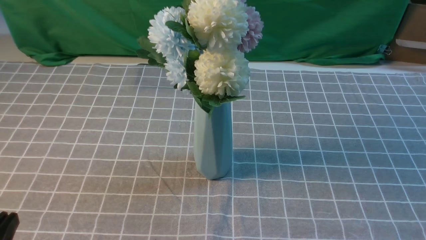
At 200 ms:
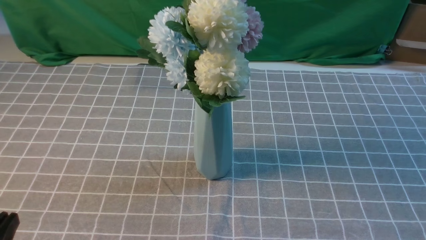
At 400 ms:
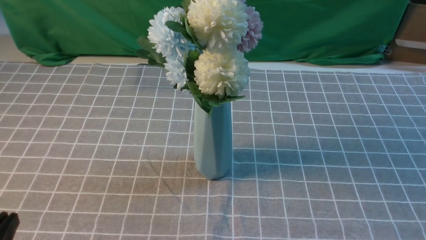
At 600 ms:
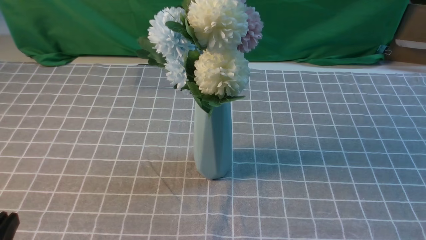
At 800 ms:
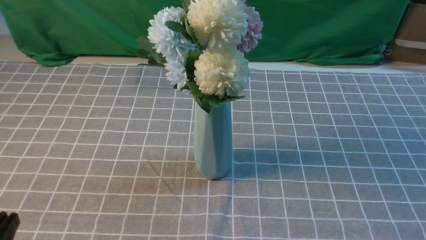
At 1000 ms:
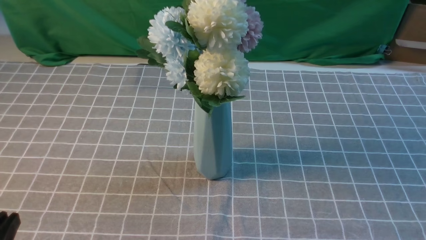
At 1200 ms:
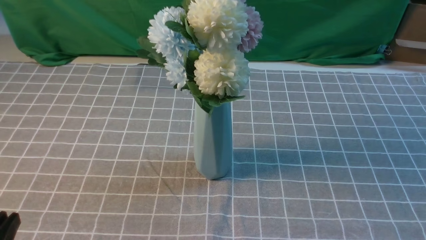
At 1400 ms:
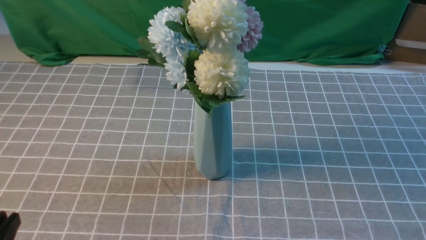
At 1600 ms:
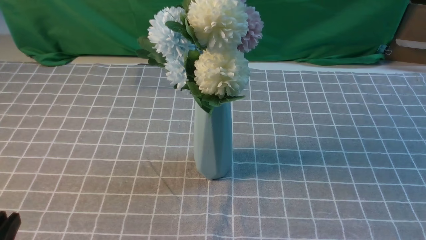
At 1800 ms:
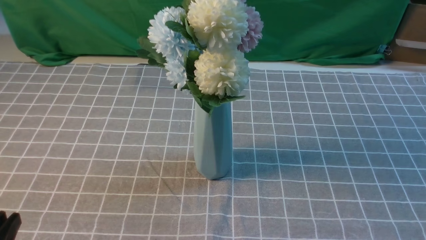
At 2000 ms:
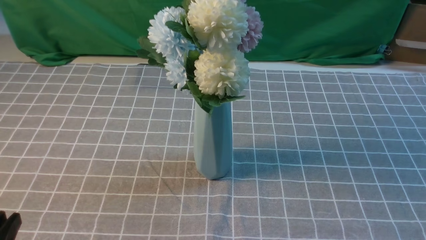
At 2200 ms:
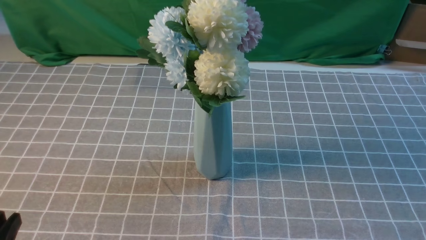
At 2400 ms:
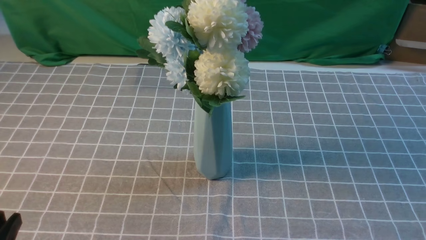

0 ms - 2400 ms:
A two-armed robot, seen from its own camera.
Task of the whole recording: insert the flowers into the vase on the table with the grey tablecloth.
1200 ms - 2400 ms: Neither gripper changes place.

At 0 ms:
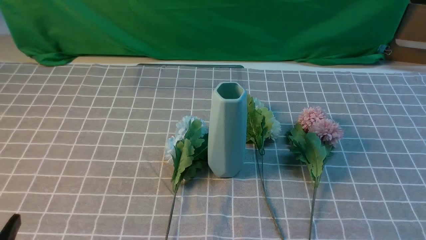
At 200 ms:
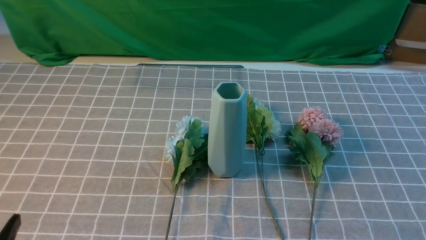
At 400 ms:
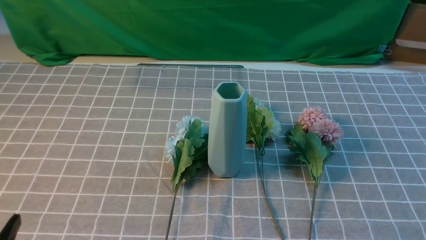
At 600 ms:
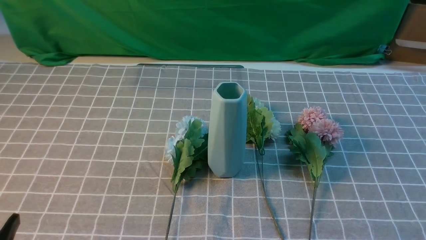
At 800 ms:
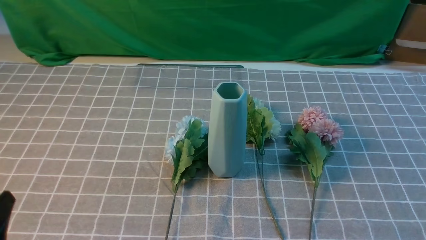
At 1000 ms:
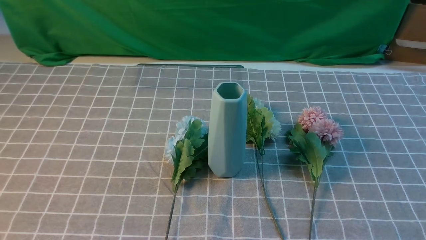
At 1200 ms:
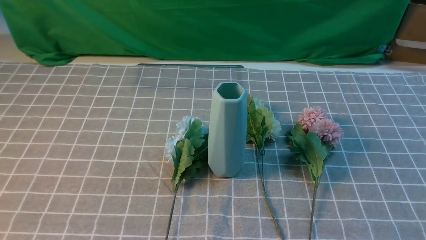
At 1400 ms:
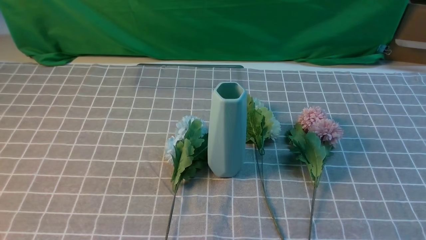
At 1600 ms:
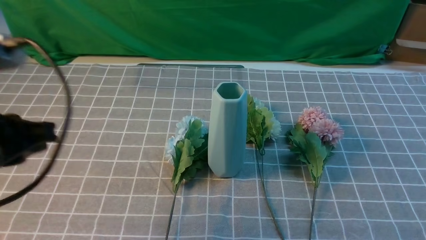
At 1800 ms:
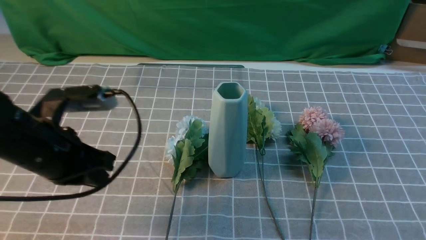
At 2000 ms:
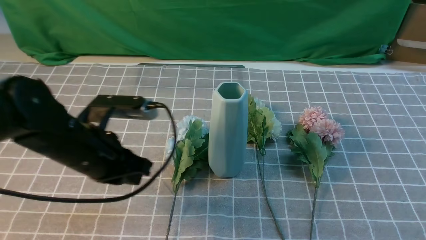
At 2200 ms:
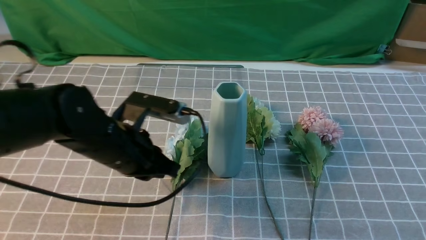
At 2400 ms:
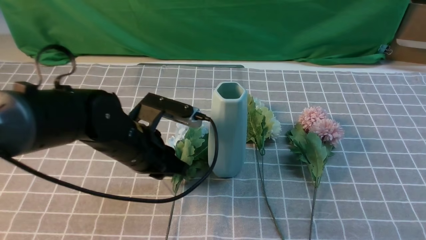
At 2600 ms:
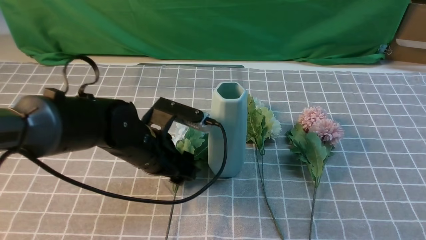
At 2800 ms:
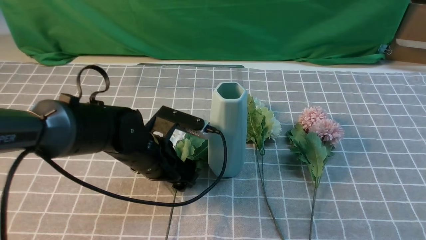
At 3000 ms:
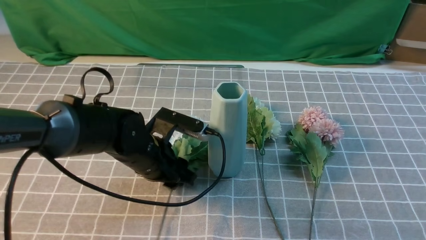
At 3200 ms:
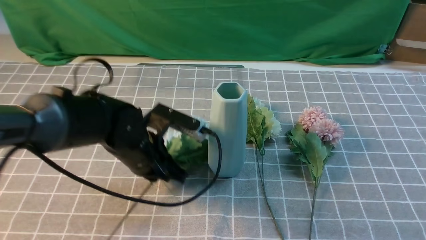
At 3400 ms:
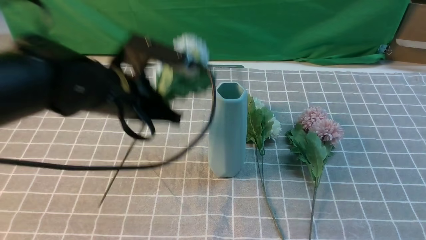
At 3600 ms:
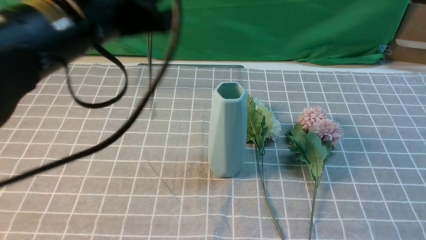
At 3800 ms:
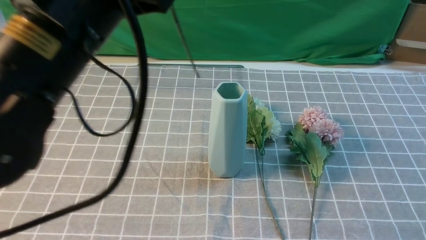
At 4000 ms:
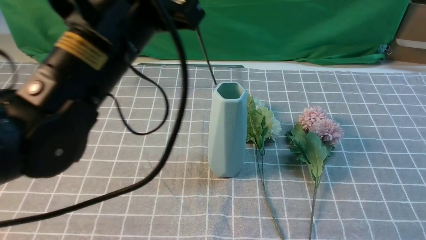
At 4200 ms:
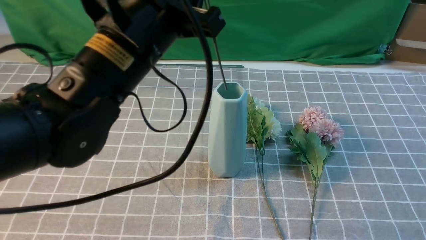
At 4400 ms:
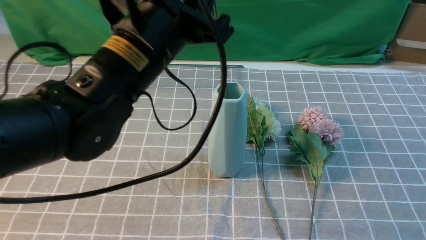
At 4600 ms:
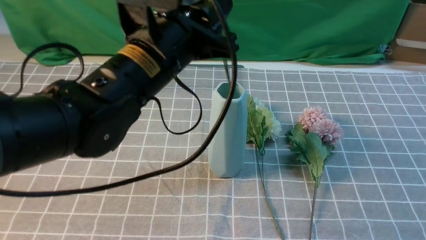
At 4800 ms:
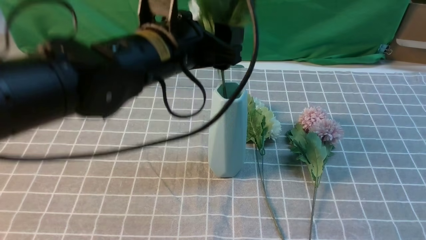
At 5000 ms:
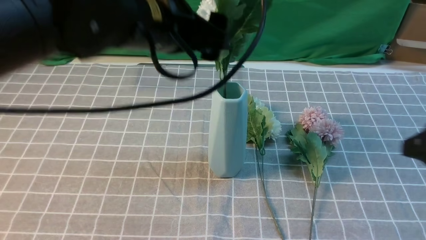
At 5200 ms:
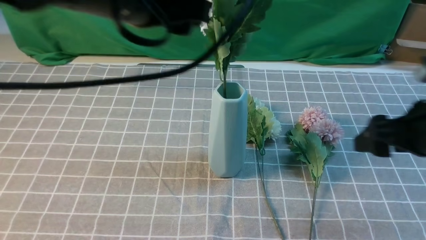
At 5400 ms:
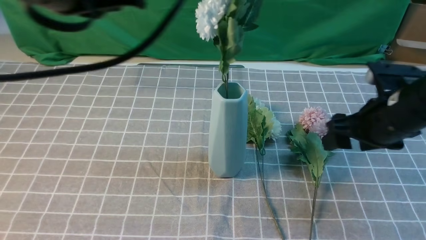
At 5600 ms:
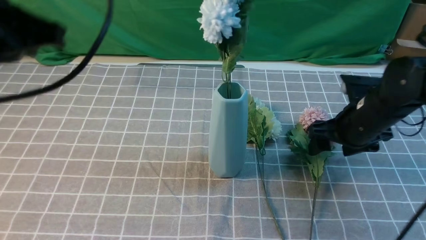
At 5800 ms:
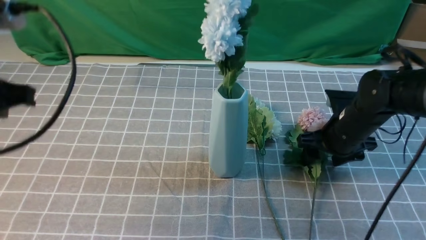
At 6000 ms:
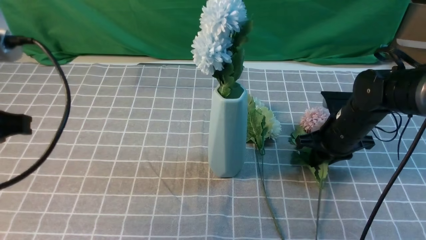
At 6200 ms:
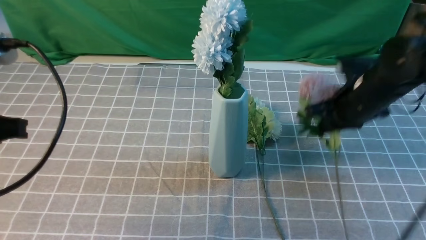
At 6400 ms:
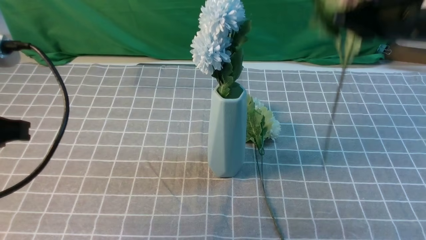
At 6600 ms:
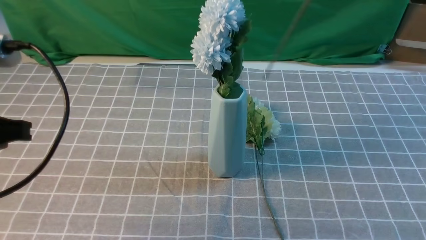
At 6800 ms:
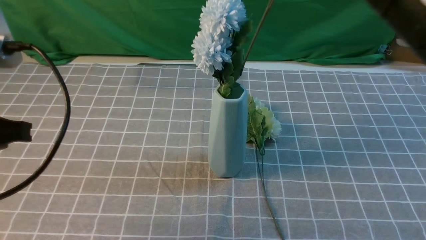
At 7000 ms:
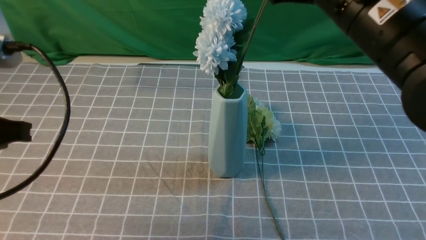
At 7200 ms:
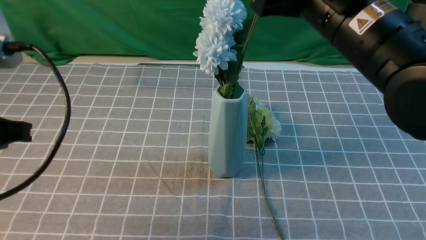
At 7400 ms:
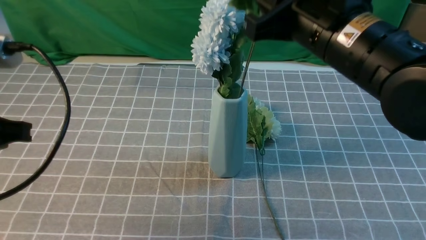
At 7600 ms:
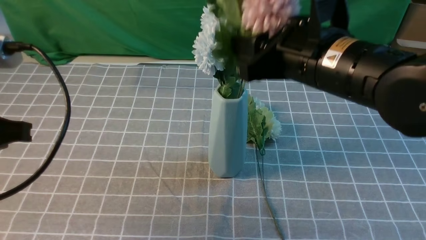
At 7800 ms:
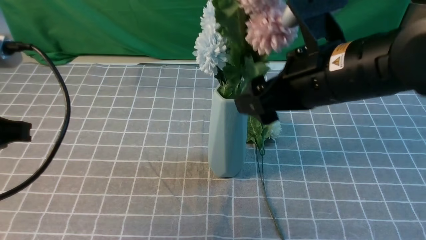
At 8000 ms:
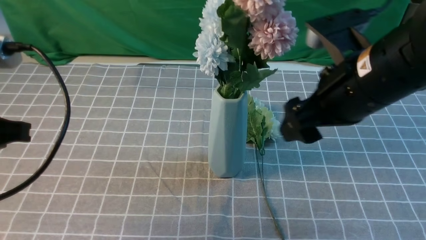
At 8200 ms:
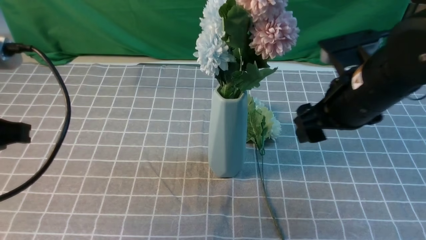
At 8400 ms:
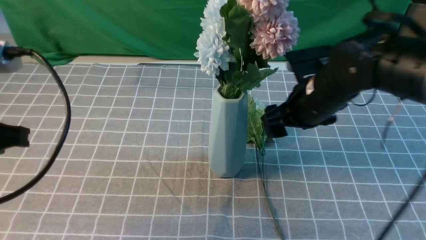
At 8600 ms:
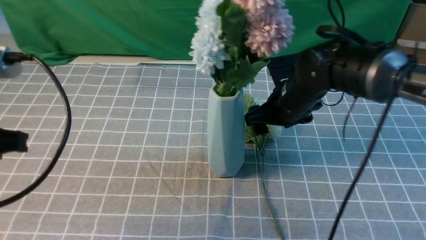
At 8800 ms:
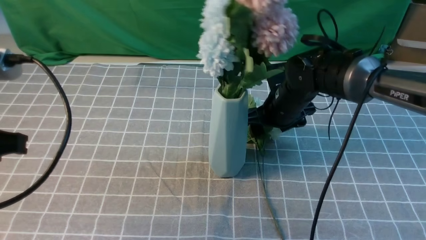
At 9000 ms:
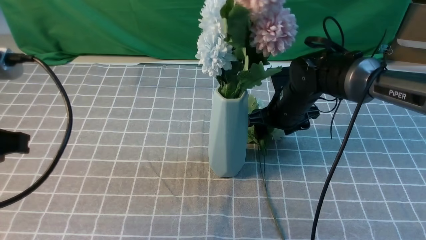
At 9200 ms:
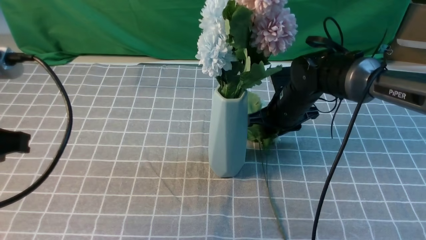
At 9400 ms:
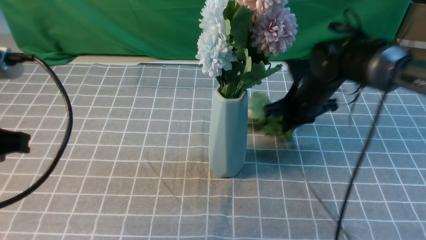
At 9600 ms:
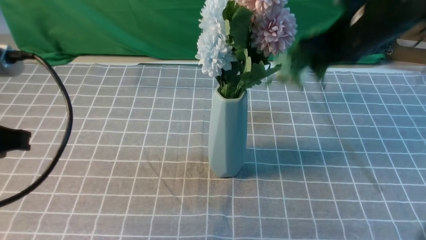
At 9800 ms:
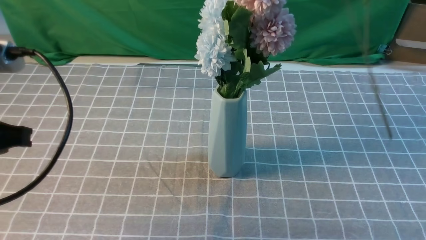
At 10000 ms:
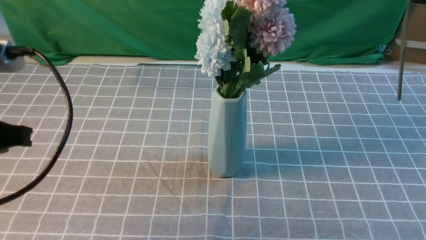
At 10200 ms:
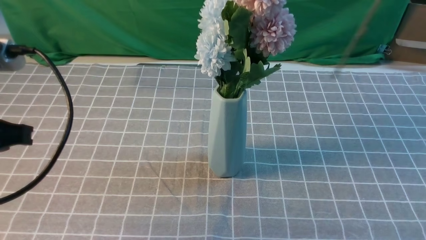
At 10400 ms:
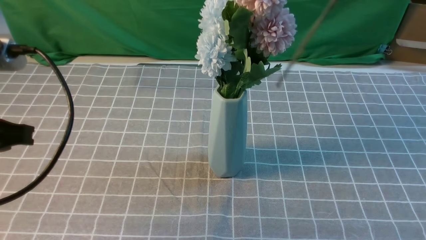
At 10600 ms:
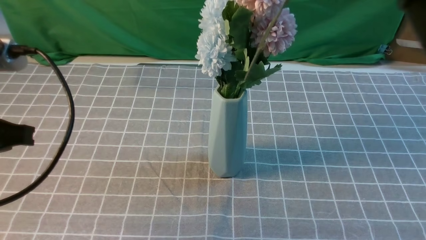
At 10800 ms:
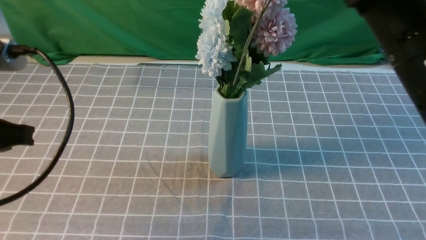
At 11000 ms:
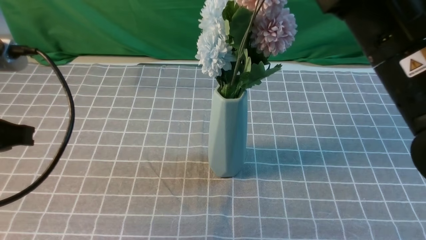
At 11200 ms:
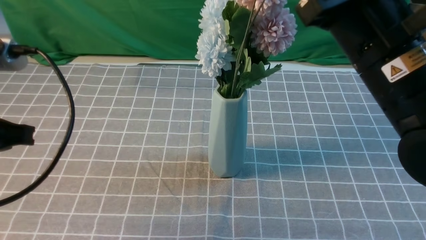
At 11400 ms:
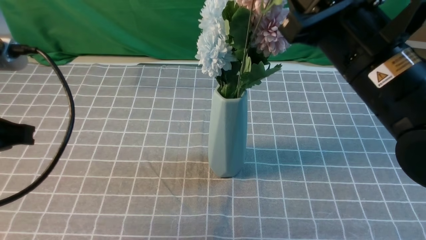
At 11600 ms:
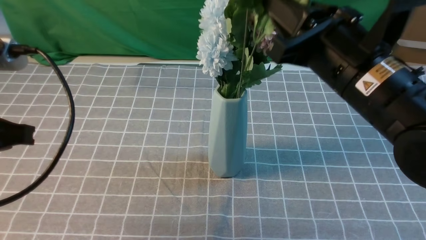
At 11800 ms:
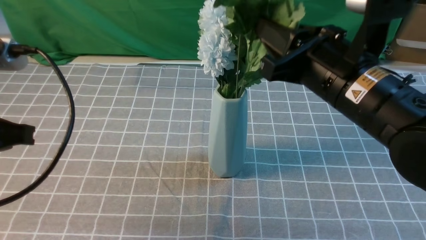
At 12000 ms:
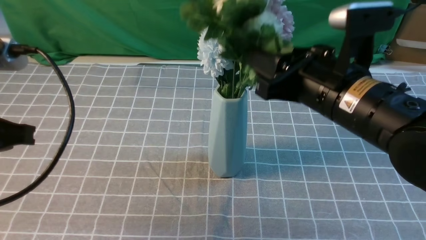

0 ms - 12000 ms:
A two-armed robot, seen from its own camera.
Task of the whole recording: insert the flowers into the vase on the table with the grey tablecloth.
Step, 0 ms - 3000 ms: use the left arm to grab a bunch of fresh flowers.
Step, 3200 ms - 5000 ms: use the left arm to insert the flowers into the vase.
Step, 5200 ms - 6000 ms: use the right arm to grab a bunch of fresh flowers.
Step, 6200 ms - 7800 ms: use the right arm to insert the flowers into the vase.
Step, 8000 ms - 9200 ms: use the right arm to grab a bunch of fresh flowers.
0 ms - 1600 ms: The left gripper goes approximately 20 cm forward and upward, and closes its fingers.
1600 ms - 3000 ms: The left gripper travels downward, to the right and forward by some 20 cm, and opens up. The right gripper heads upward and forward, covering some 10 cm, and closes up.
3000 ms - 4400 ms: The left gripper heads upward, covering about 20 cm, and closes its fingers.
4400 ms - 6000 ms: The right gripper moves forward and downward, about 30 cm, and opens and closes again. Meanwhile the left gripper shifts some 20 cm to the left and backward, and opens, then closes once more.
6000 ms - 7600 ms: The right gripper goes approximately 20 cm upward, to the left and backward.
7600 ms - 9000 ms: The right gripper goes approximately 25 cm downward and forward.
9000 ms - 10400 ms: The right gripper shifts approximately 35 cm upward and backward, and closes.
10400 ms - 12000 ms: The right gripper goes some 15 cm downward, to the left and forward, and opens up.

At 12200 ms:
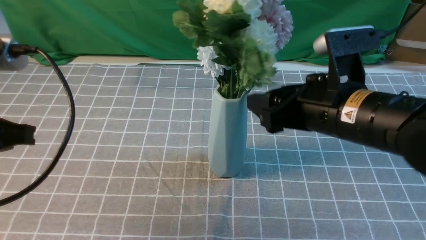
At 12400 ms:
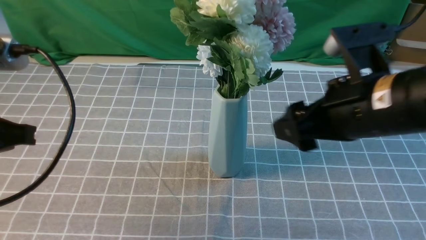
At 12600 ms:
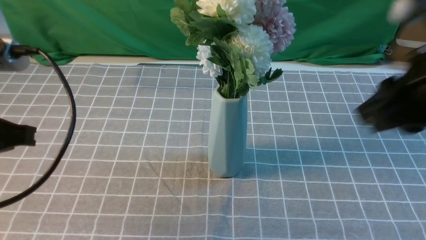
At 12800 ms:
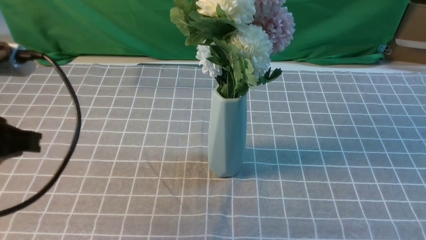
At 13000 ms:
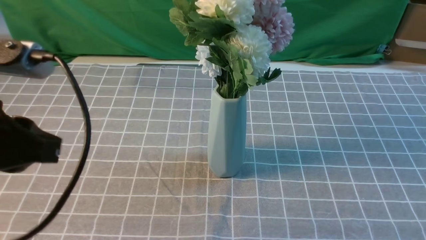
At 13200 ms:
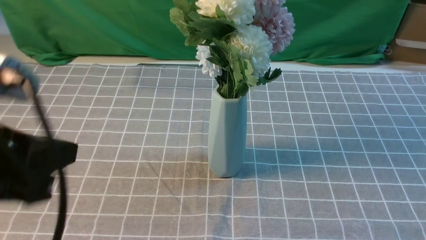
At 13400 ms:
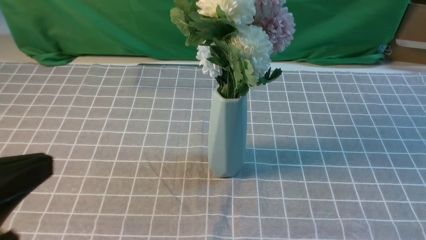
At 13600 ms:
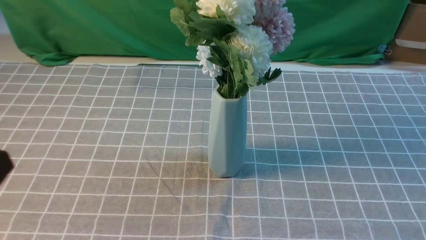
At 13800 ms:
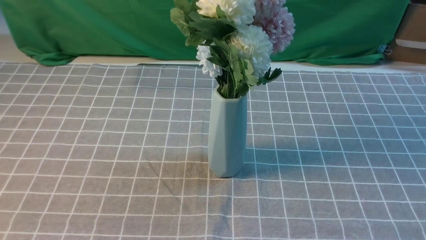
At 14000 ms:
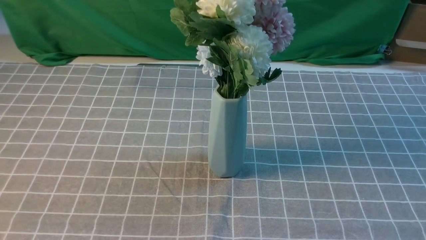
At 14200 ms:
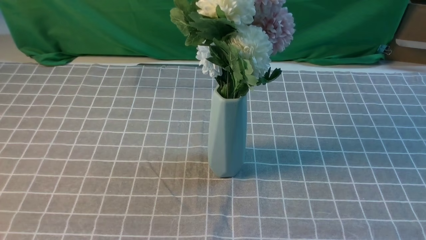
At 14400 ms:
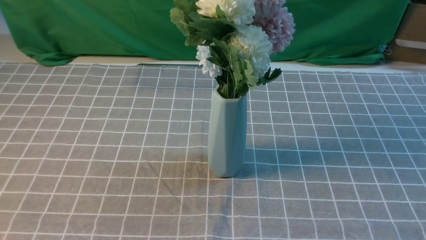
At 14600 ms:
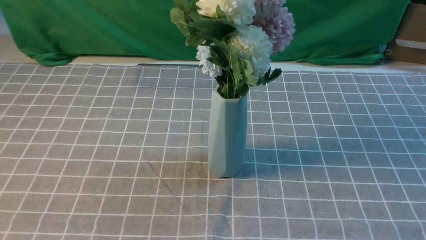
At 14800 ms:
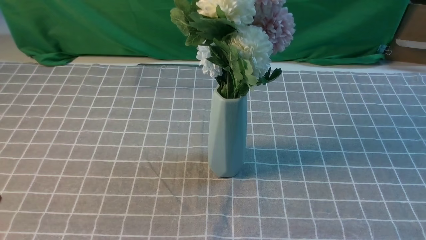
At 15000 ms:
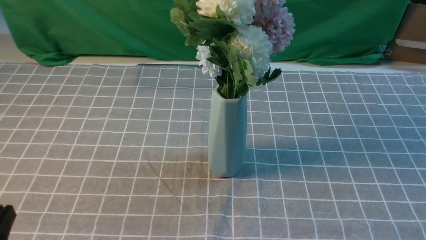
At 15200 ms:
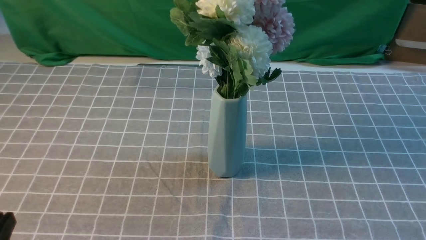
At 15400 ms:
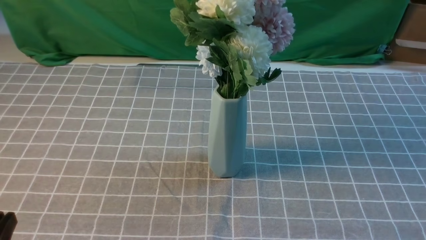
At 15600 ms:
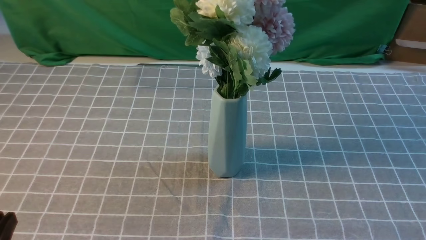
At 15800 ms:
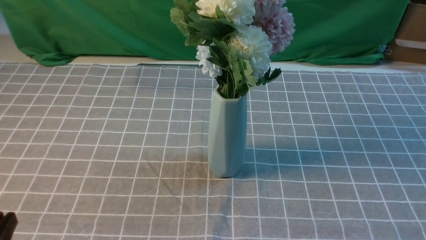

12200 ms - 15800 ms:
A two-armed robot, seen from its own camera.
Task of the whole recording: insert the flowers into the vase on the table with the grey tablecloth.
12200 ms - 14000 ms: The left gripper moves backward, about 15 cm; the right gripper heads backward and to the right, covering approximately 25 cm, and closes up.
